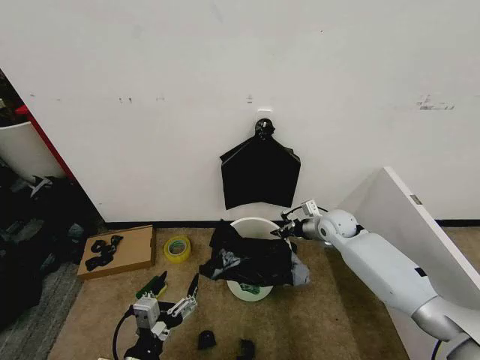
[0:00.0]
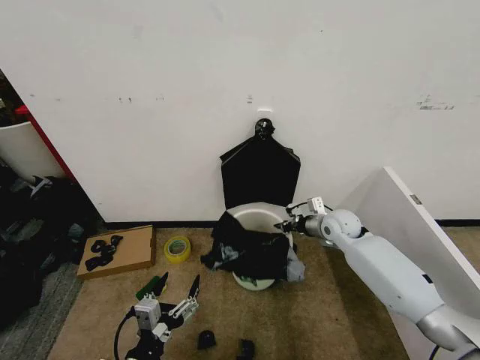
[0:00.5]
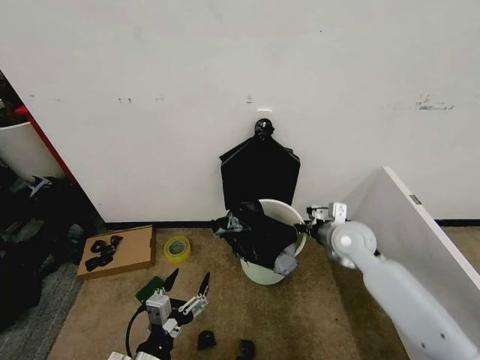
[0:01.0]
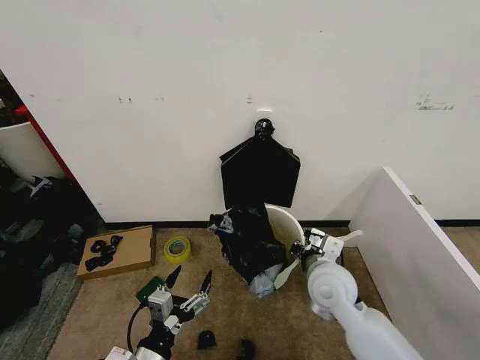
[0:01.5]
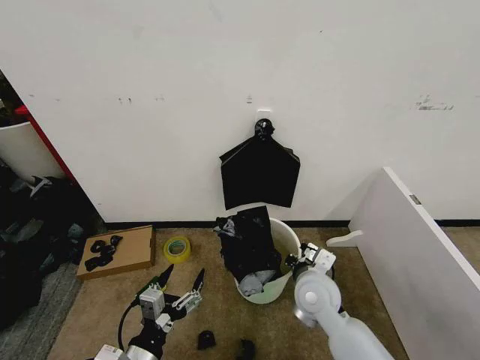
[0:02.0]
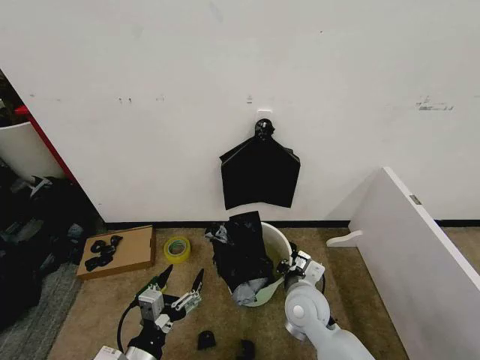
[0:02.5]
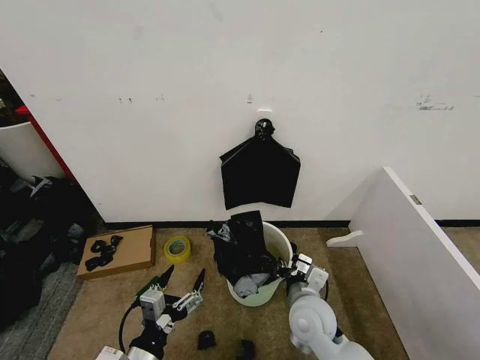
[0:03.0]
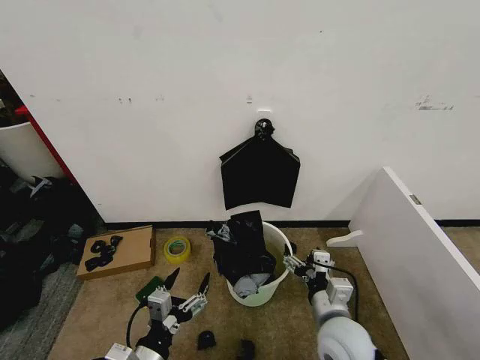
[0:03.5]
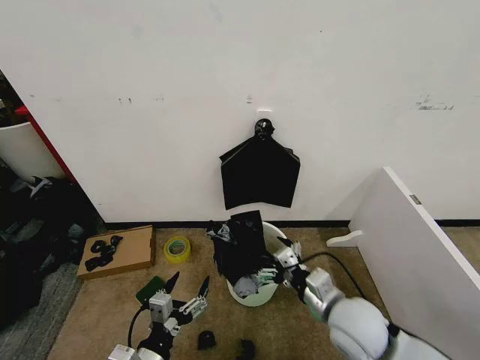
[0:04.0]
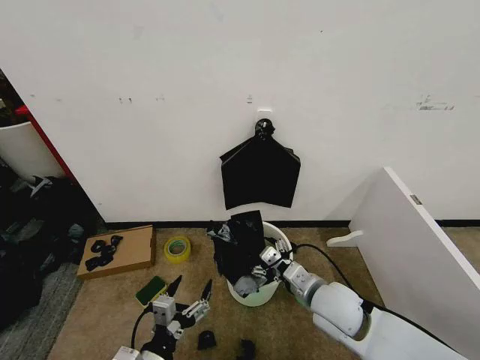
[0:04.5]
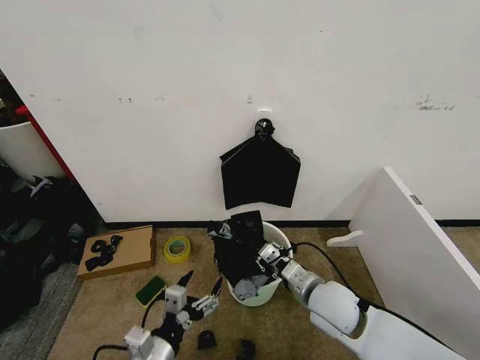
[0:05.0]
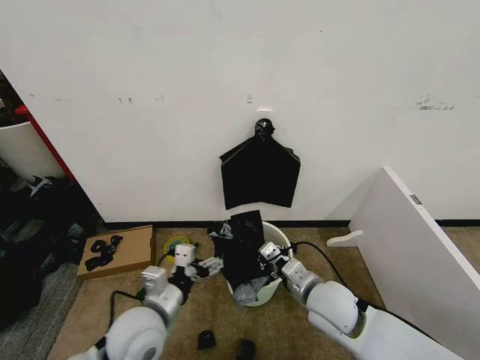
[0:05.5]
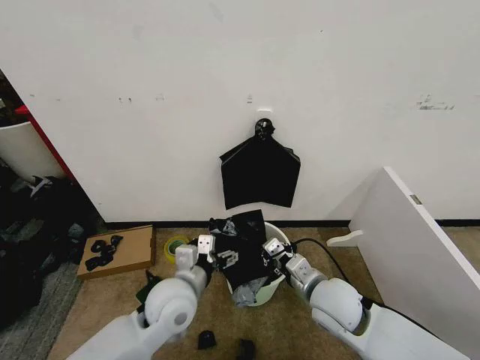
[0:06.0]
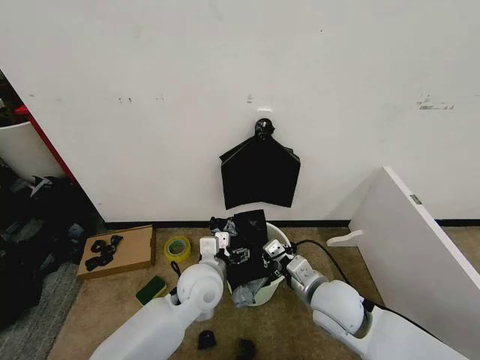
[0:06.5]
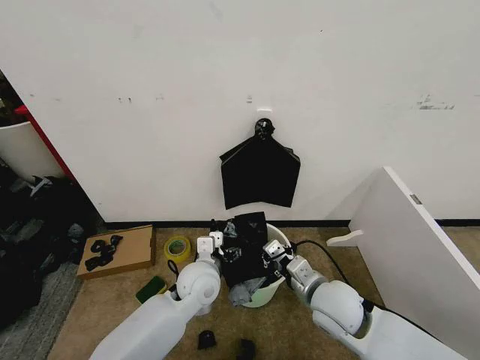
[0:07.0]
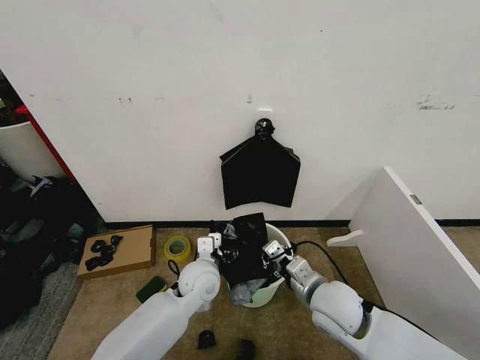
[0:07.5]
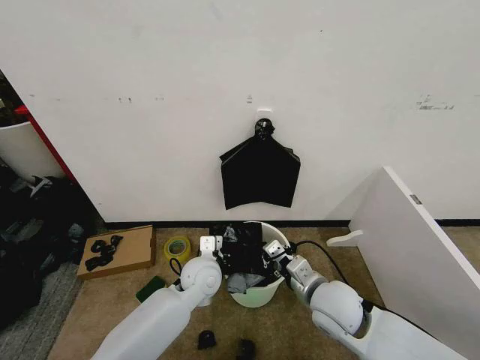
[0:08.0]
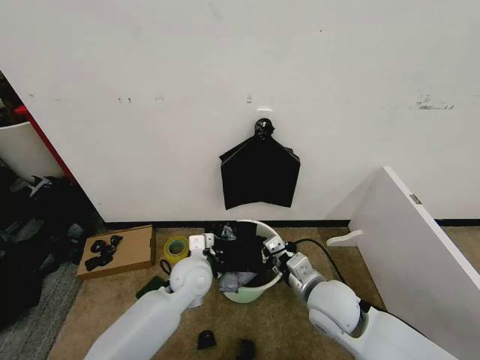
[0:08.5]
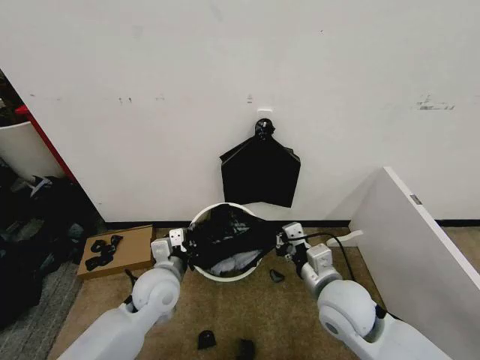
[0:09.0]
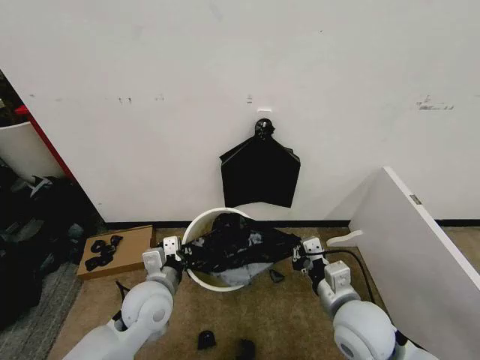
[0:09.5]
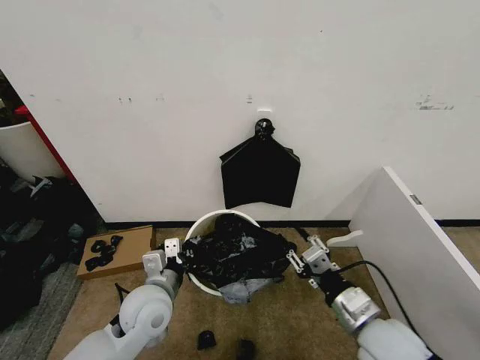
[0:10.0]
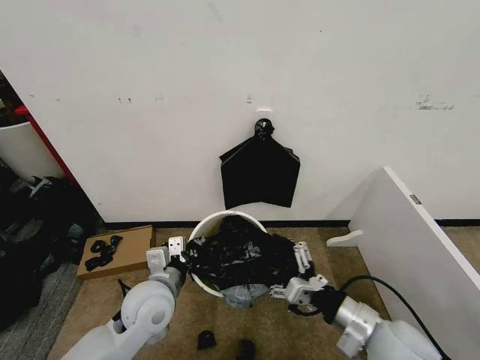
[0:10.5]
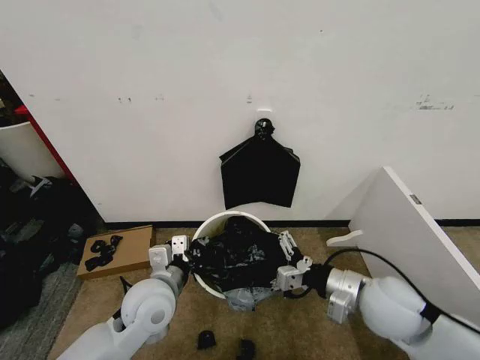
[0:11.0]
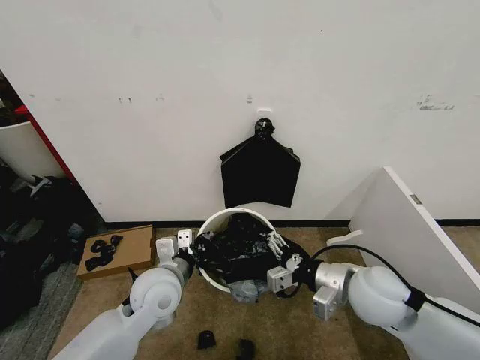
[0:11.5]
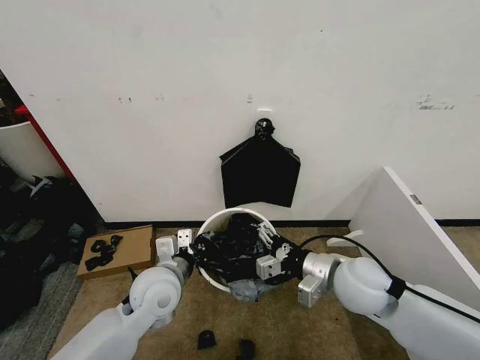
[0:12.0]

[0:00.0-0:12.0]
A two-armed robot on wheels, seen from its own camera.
Task of the whole recording: Place the garbage bag over the trash bin.
0:00.0 to 0:02.0: The right gripper shifts roughly 25 cm backward and to the left.
0:02.0 to 0:04.0: The right gripper heads backward, covering approximately 5 cm, and opens.
0:04.0 to 0:06.0: The right gripper closes. The left gripper heads forward, to the right and upward, covering about 20 cm.
0:06.0 to 0:08.0: The left gripper heads forward and downward, covering about 10 cm, and closes up.
0:08.0 to 0:10.0: The left gripper travels to the left and backward by approximately 15 cm, and closes its fingers. Meanwhile the right gripper is displaced backward and to the right by some 10 cm, and opens its fingers.
0:10.0 to 0:12.0: The right gripper shifts about 10 cm forward, and opens.

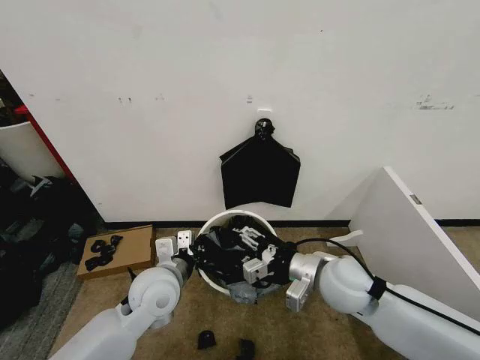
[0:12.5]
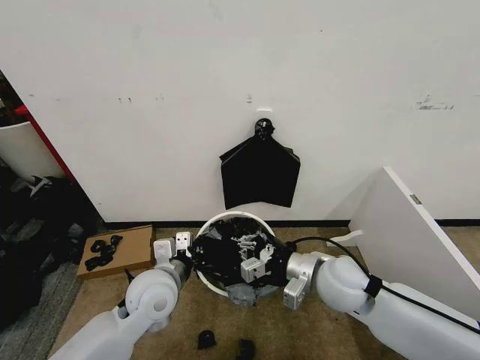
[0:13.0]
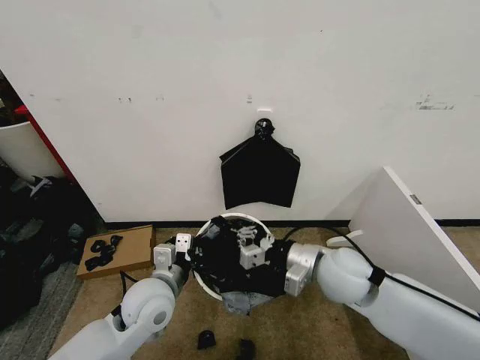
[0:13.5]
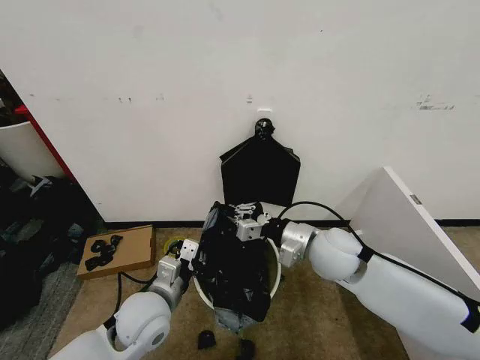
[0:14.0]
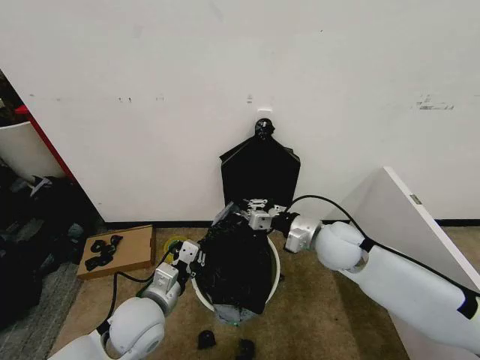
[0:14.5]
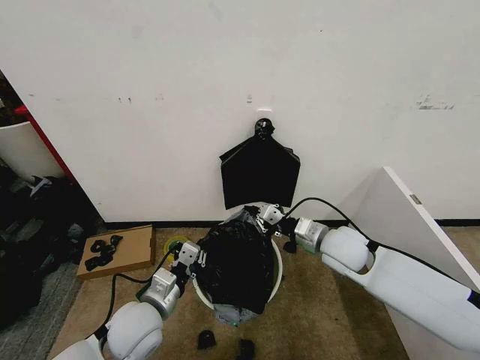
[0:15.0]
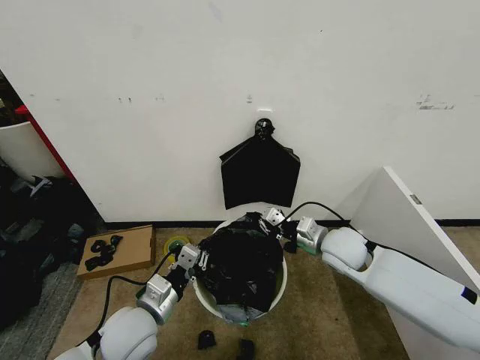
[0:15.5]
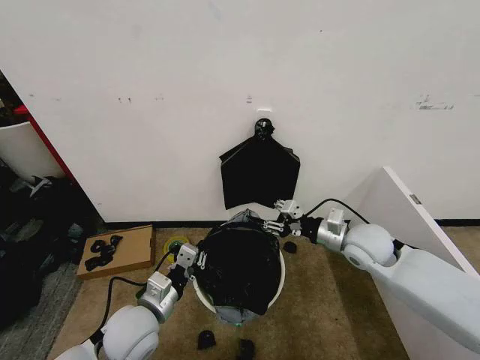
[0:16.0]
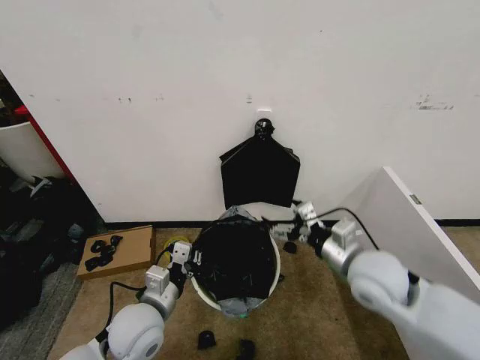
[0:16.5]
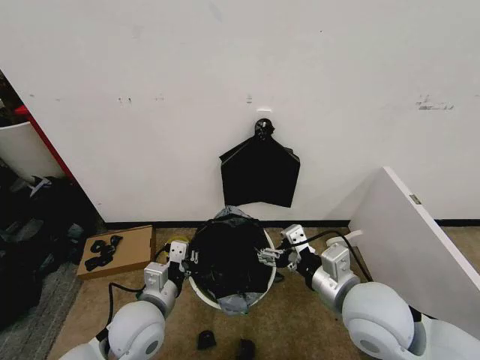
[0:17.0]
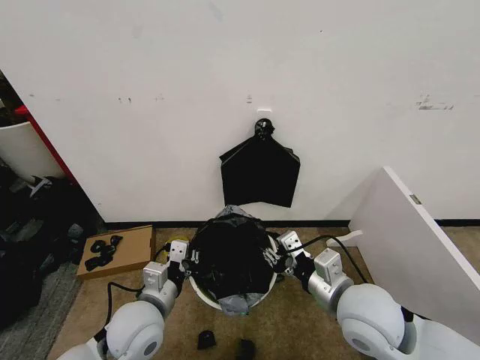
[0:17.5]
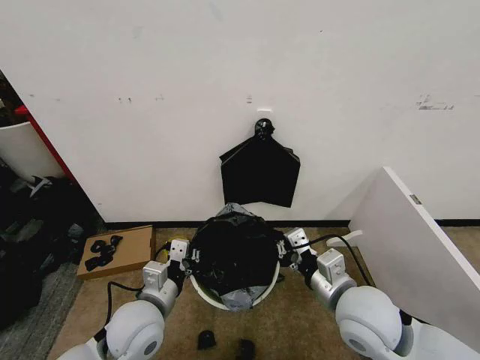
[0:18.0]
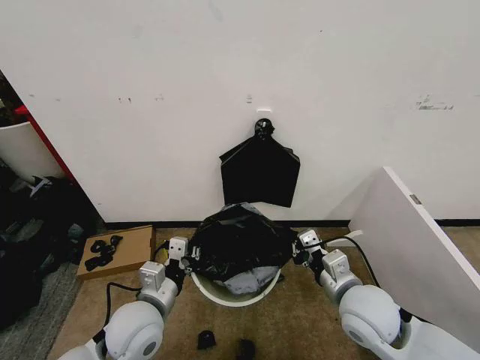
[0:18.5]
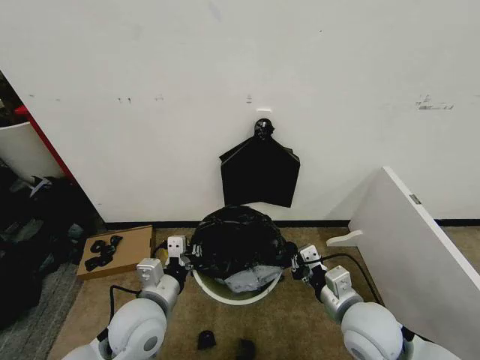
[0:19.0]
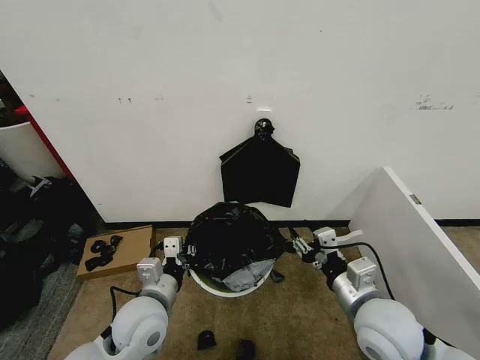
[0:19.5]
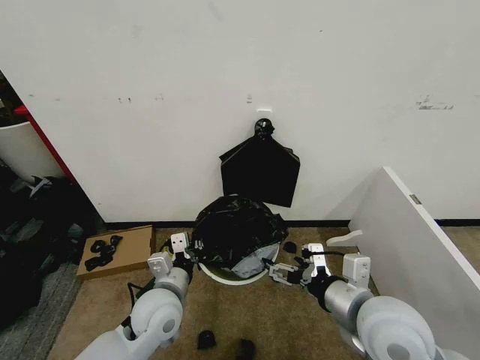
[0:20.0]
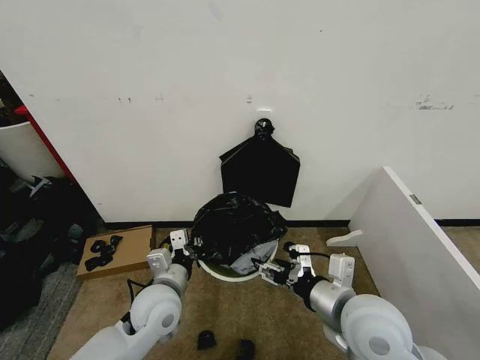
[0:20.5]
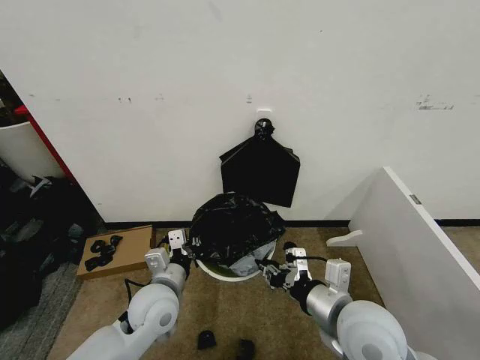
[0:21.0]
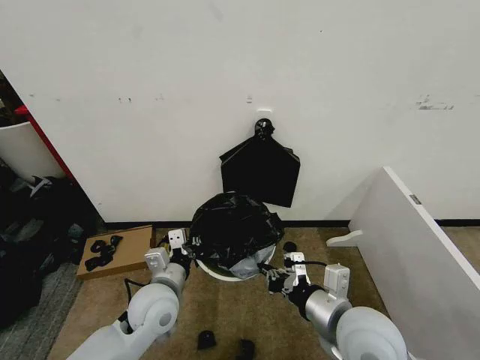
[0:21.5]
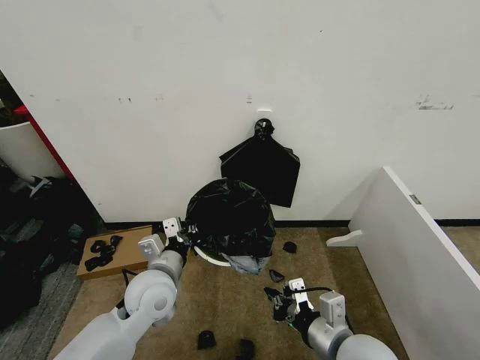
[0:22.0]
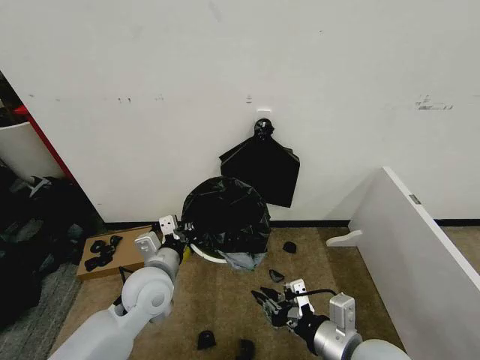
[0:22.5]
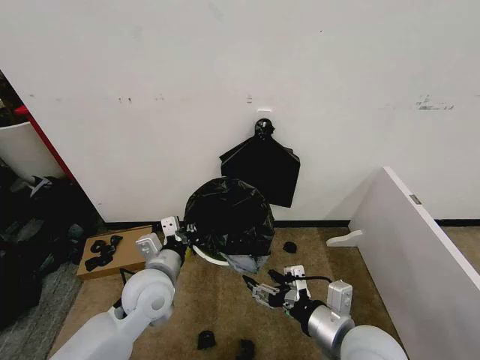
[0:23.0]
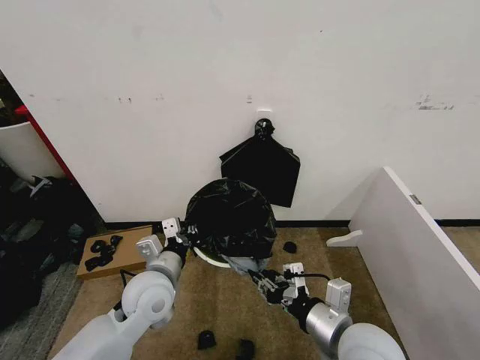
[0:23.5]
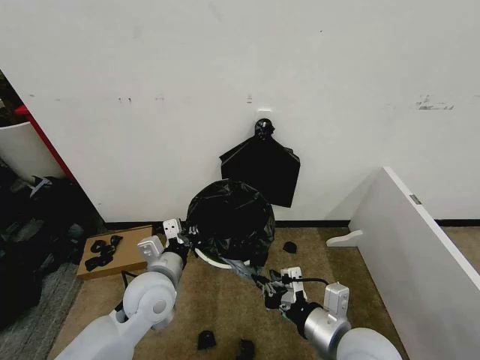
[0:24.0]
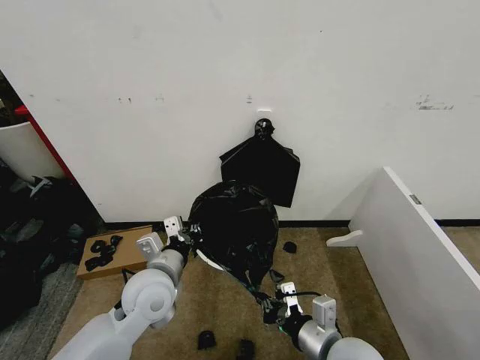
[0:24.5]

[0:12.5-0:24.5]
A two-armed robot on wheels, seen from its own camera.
Task of the whole recording: Place the garbage bag over the trash bin.
0:12.5 to 0:14.5: The left gripper ends up roughly 5 cm from where it was, while the right gripper moves forward, about 10 cm, and closes up.
0:14.5 to 0:16.5: The right gripper travels backward by some 10 cm, and opens its fingers.
0:16.5 to 0:18.5: The right gripper ends up about 5 cm from where it was, and closes up.
0:18.5 to 0:20.5: The right gripper moves upward, about 5 cm, and opens its fingers.
0:20.5 to 0:22.5: The right gripper is displaced backward by approximately 5 cm, and closes.
0:22.5 to 0:24.5: The right gripper opens, then closes again.

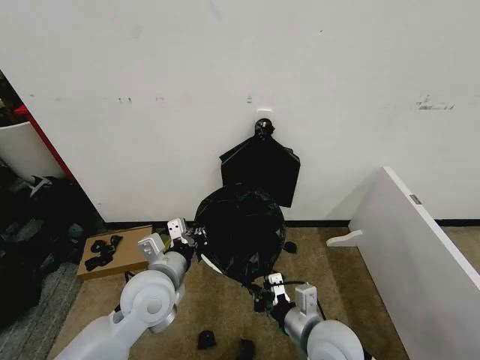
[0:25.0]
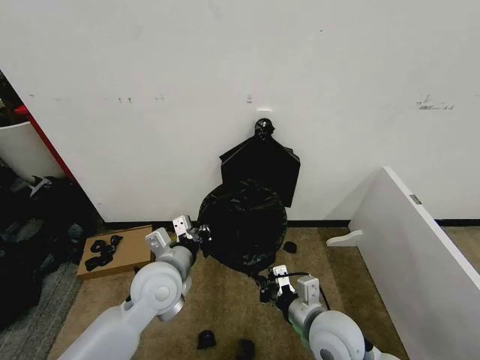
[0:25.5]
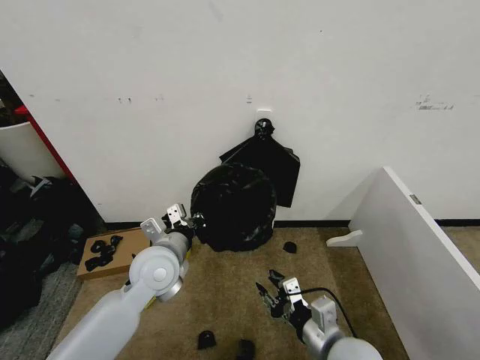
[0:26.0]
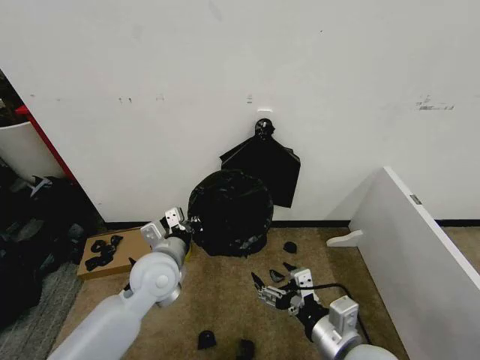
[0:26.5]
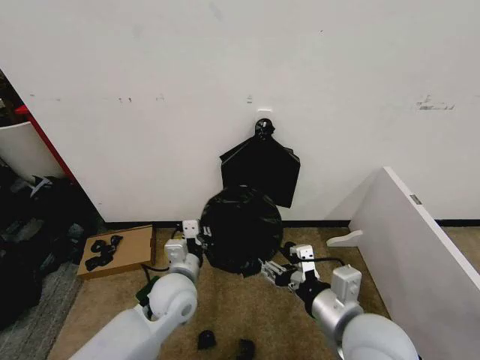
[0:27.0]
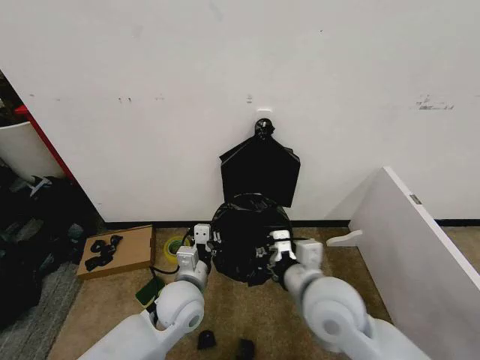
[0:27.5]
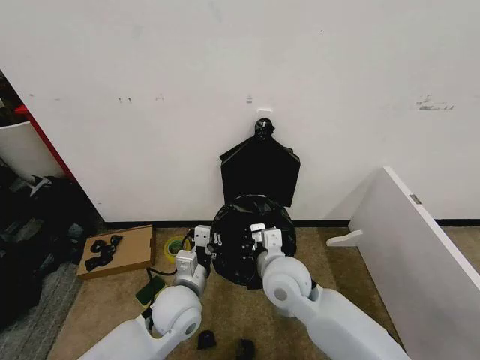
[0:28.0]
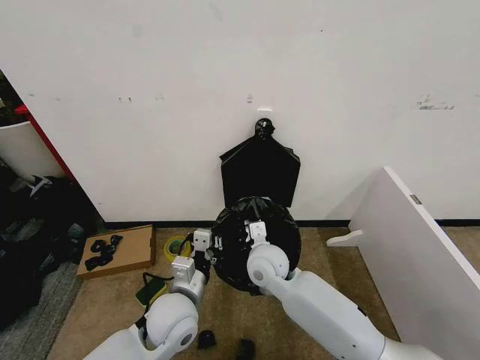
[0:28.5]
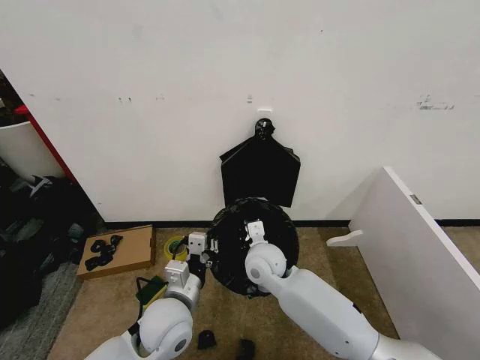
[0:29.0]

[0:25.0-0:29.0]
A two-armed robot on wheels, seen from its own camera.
Task of the whole recording: Place the garbage bag over the trash bin.
0:25.0 to 0:27.0: The right gripper shifts roughly 10 cm upward, and opens up, while the left gripper shifts about 5 cm downward.
0:27.0 to 0:29.0: The right gripper travels forward, to the left and downward by roughly 25 cm, and closes. The left gripper goes approximately 5 cm backward.
